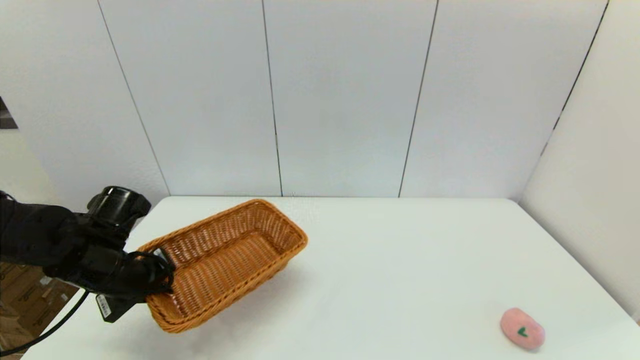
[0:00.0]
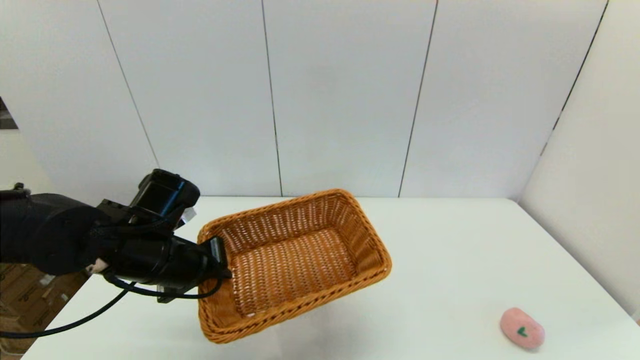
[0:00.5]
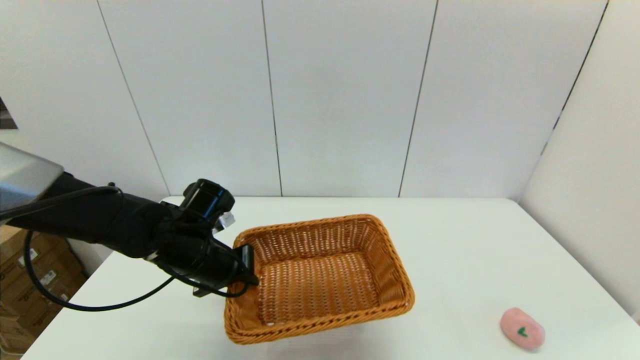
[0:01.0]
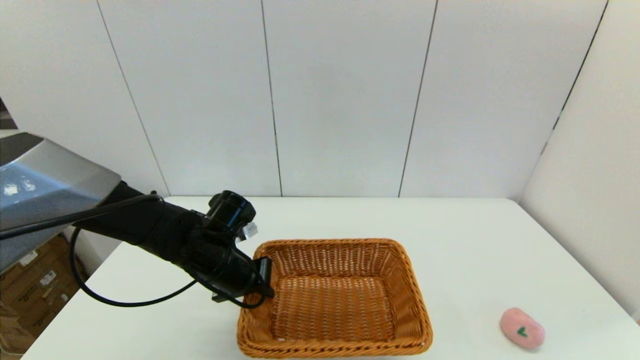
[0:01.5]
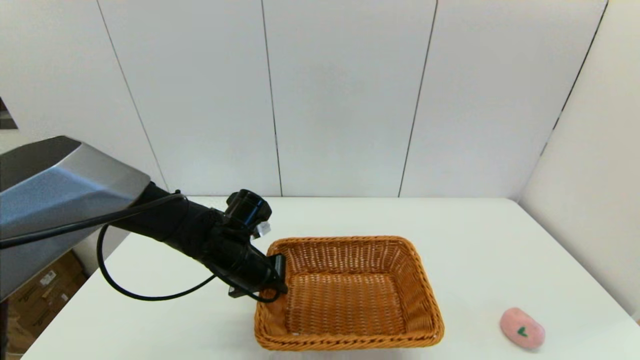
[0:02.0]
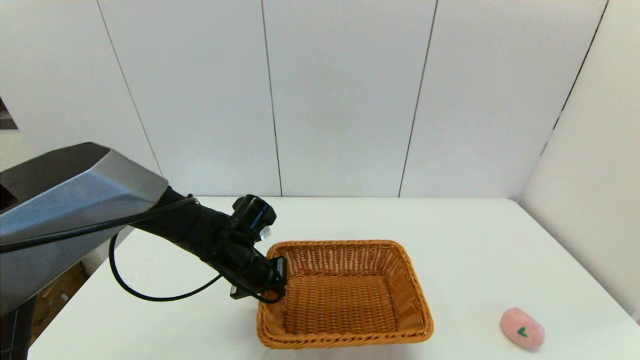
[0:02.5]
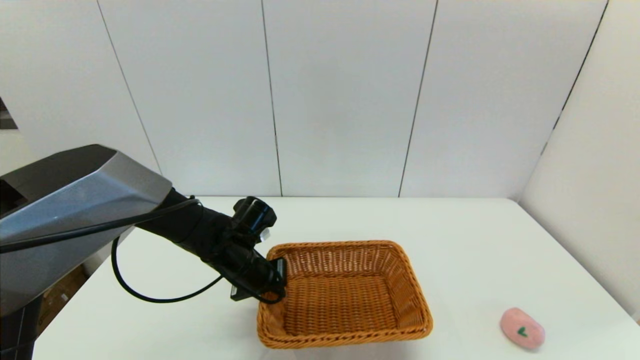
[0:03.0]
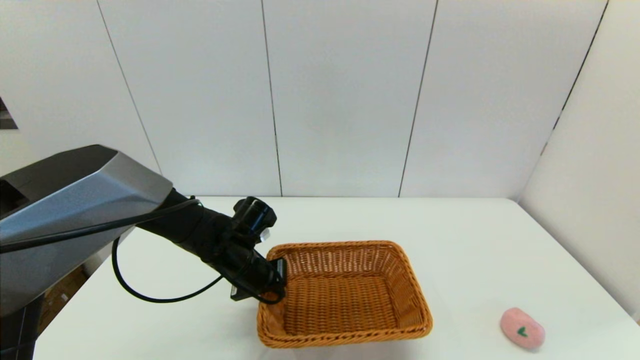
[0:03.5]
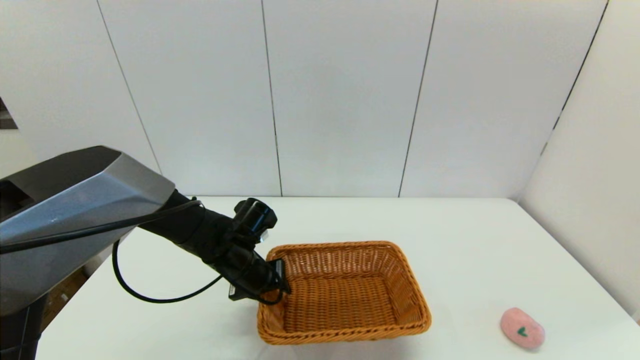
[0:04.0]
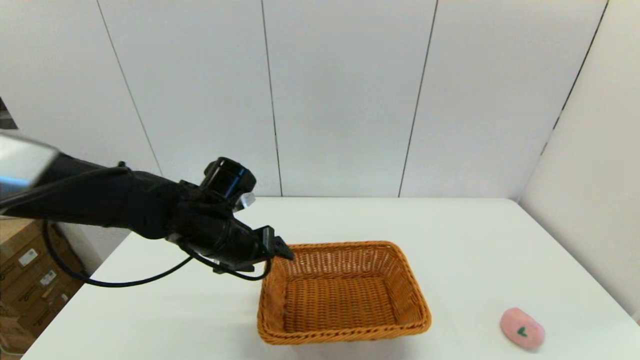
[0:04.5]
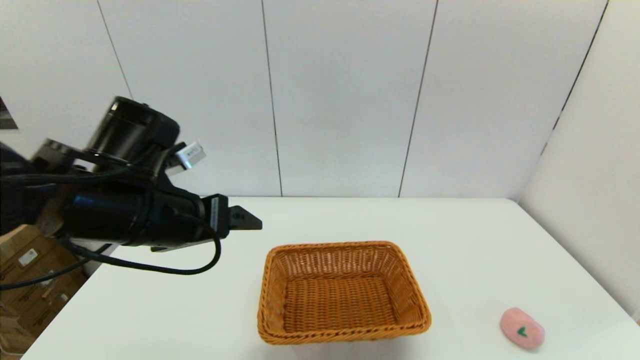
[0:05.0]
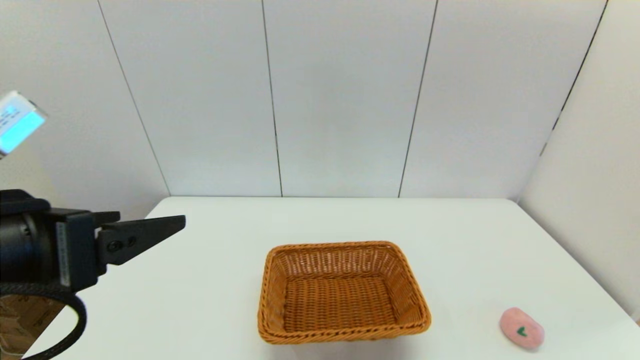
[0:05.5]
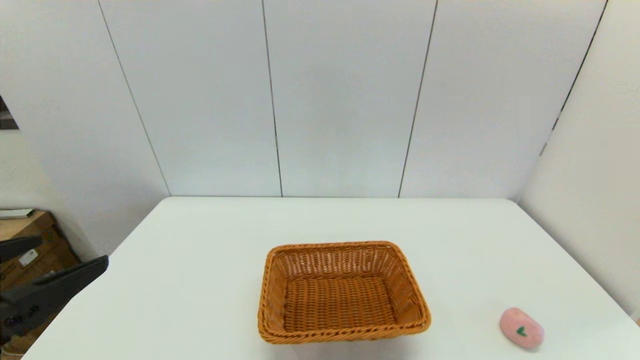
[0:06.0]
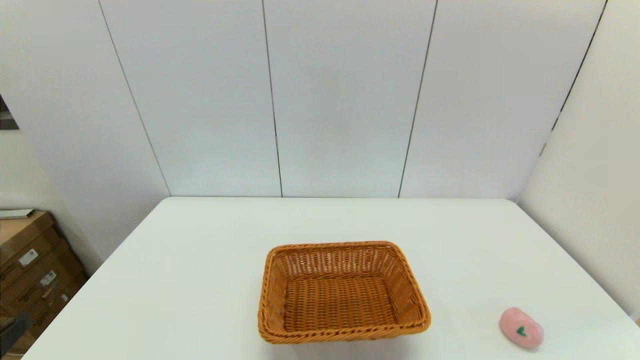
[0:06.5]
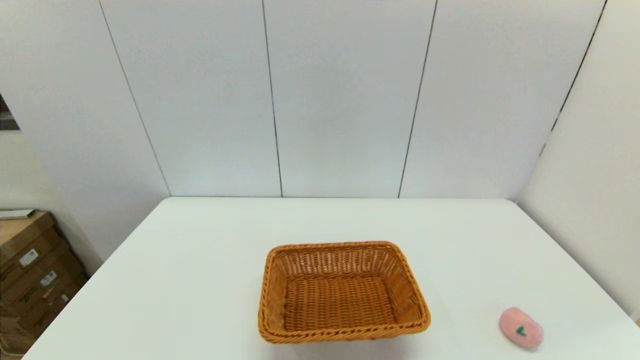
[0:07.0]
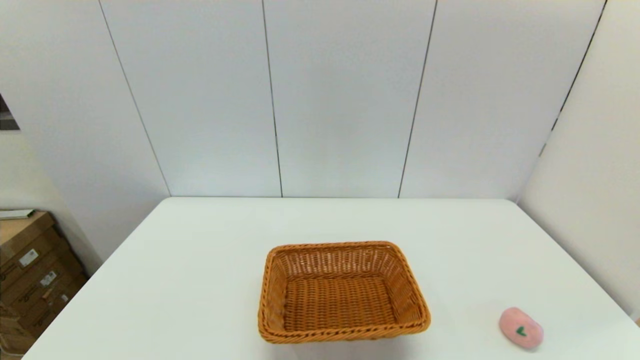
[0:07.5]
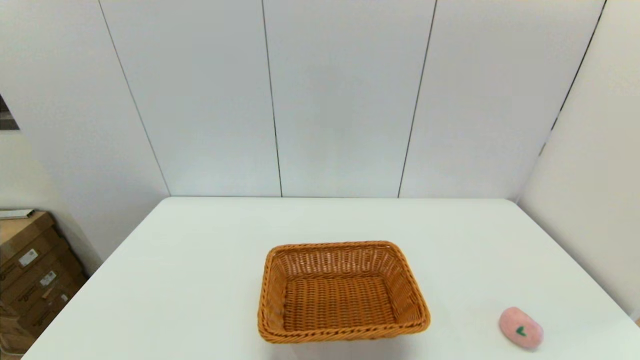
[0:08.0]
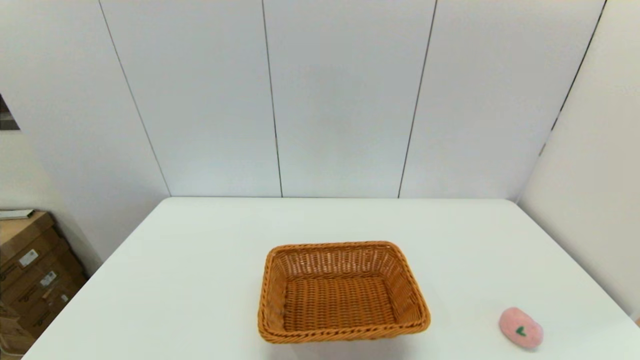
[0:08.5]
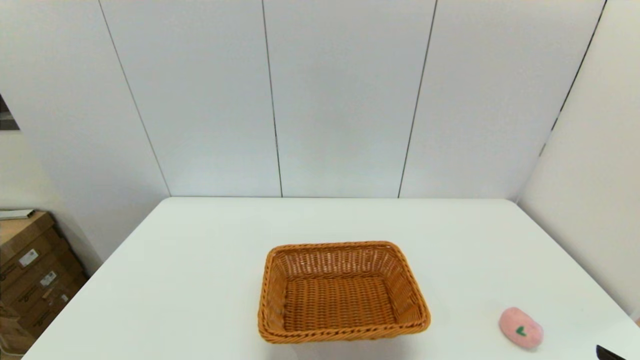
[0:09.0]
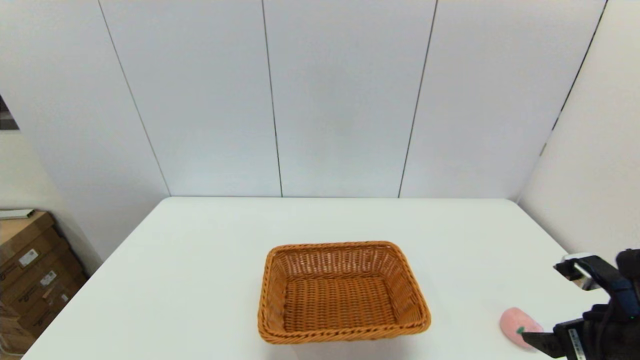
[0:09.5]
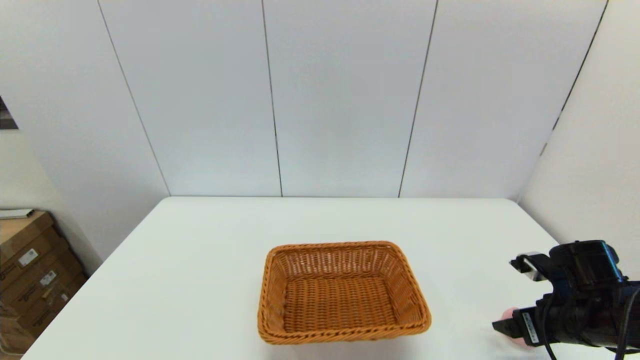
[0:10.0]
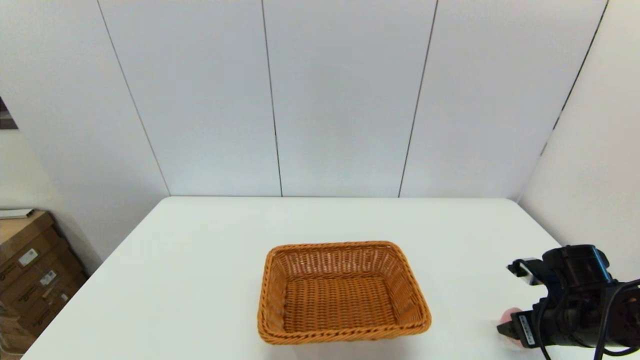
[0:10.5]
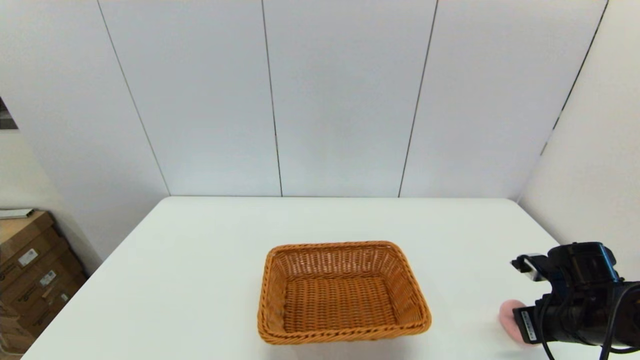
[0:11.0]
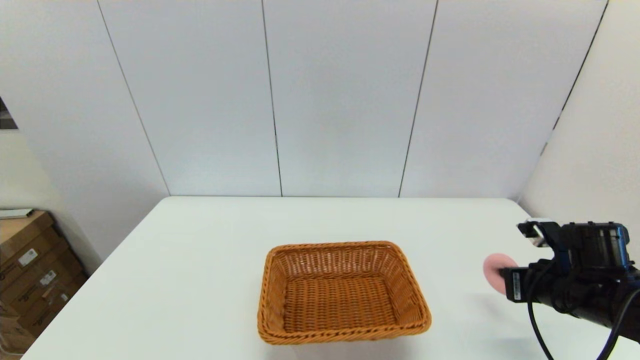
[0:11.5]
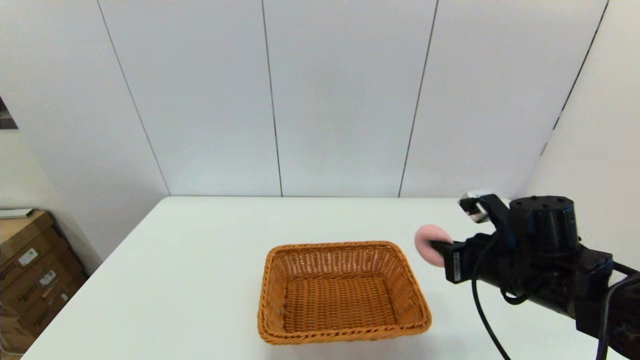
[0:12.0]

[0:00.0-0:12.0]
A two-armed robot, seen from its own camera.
Step, 0:00.0 to 0:03.5: Place the light basket on the middle of the table with the left gripper.
Step, 0:04.0 to 0:10.5: Grasp the peach with the right gripper.
0:00.0 to 0:02.0: The left gripper goes roughly 15 cm to the right and forward.
0:02.0 to 0:04.0: The left gripper opens its fingers.
0:04.0 to 0:06.0: The left gripper moves backward, upward and to the left, approximately 35 cm, and opens.
0:06.0 to 0:08.0: The left gripper moves downward and backward, about 20 cm.
0:08.0 to 0:10.0: The right gripper shifts about 25 cm forward.
0:10.0 to 0:12.0: The right gripper heads to the left and upward, covering some 15 cm, and closes its fingers.

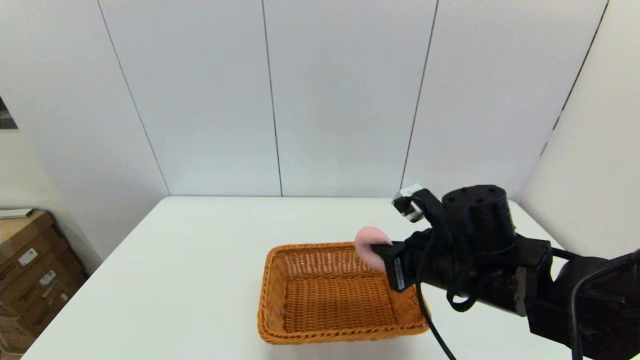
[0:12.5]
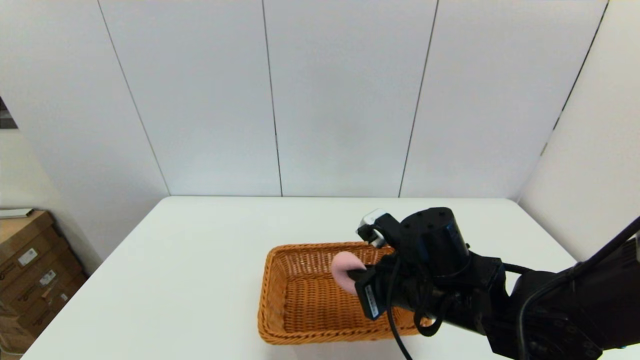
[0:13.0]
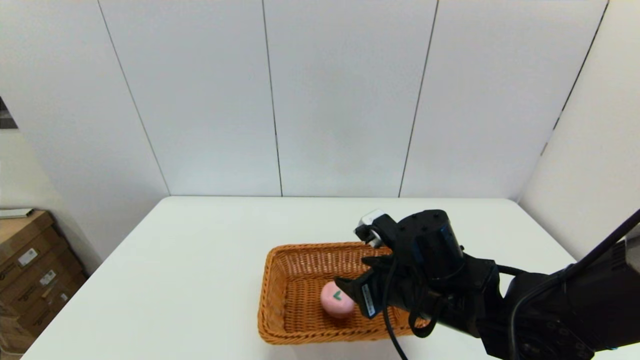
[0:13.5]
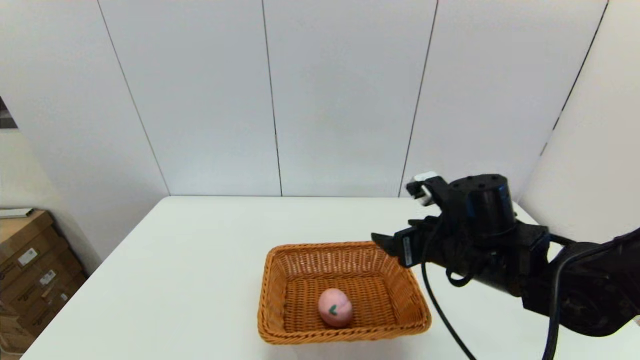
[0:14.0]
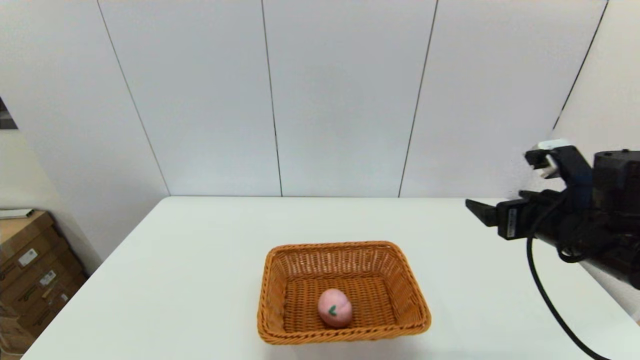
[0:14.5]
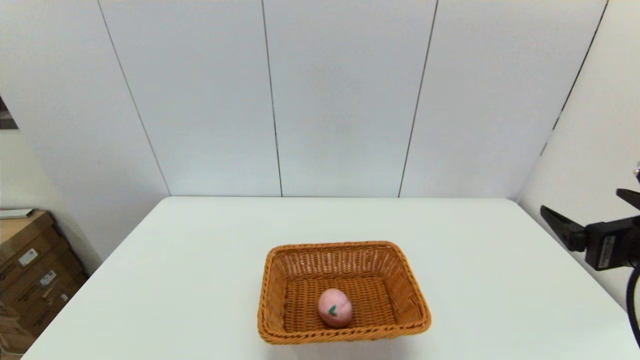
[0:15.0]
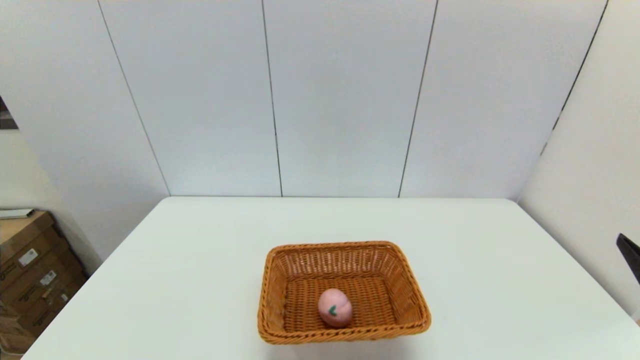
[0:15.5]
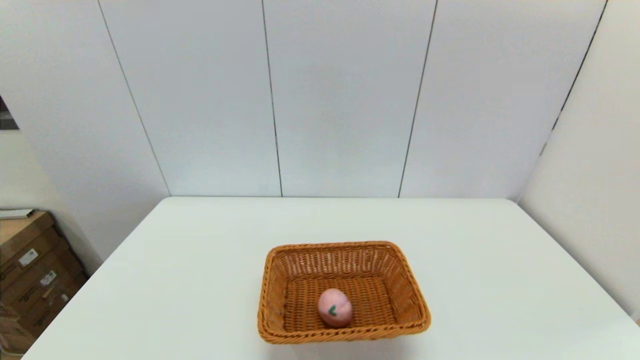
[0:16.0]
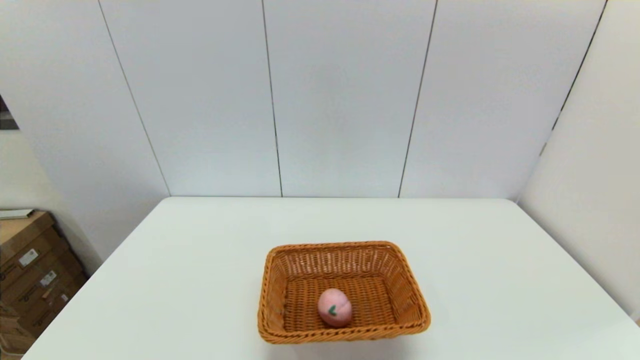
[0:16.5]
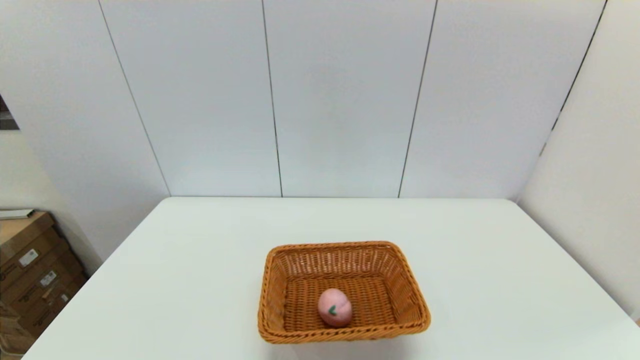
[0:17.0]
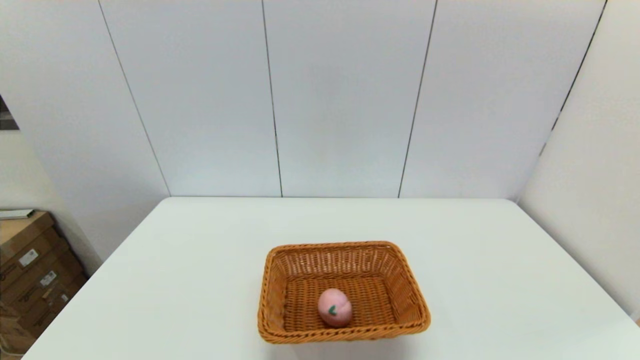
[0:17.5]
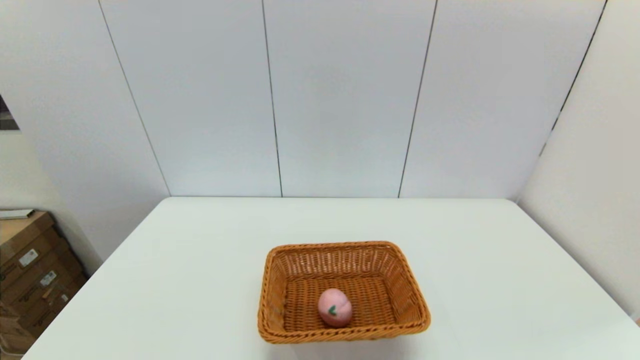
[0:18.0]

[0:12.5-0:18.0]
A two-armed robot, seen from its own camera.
0:12.5 to 0:14.5: The right gripper is displaced to the right by some 15 cm, and opens its fingers.
0:14.5 to 0:16.0: The right gripper is displaced backward by roughly 20 cm.

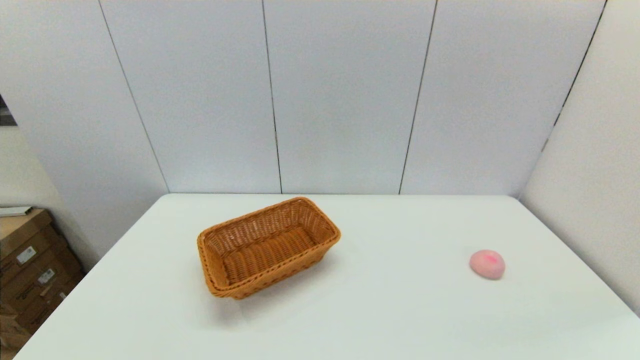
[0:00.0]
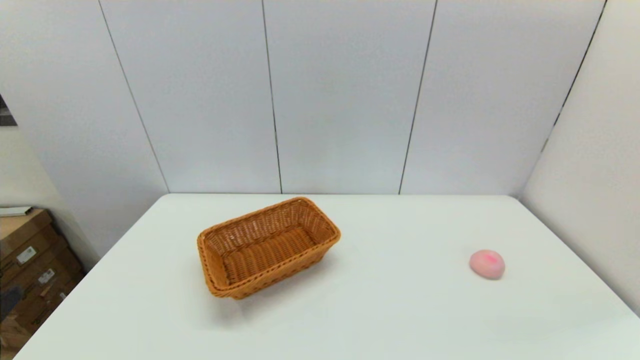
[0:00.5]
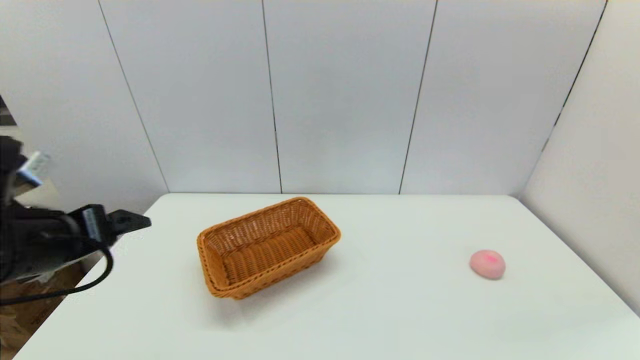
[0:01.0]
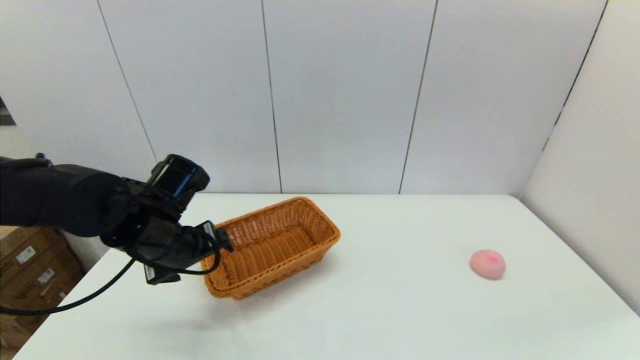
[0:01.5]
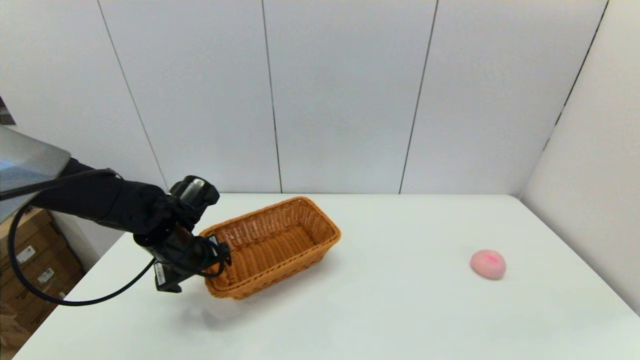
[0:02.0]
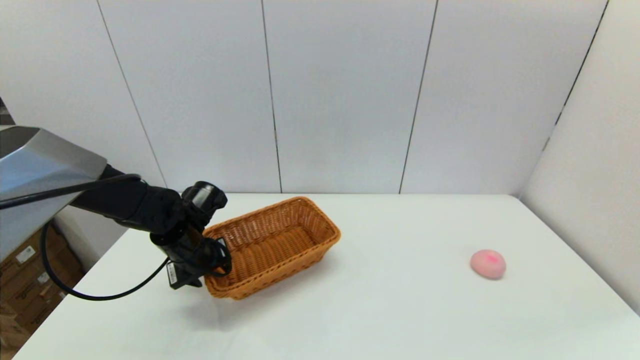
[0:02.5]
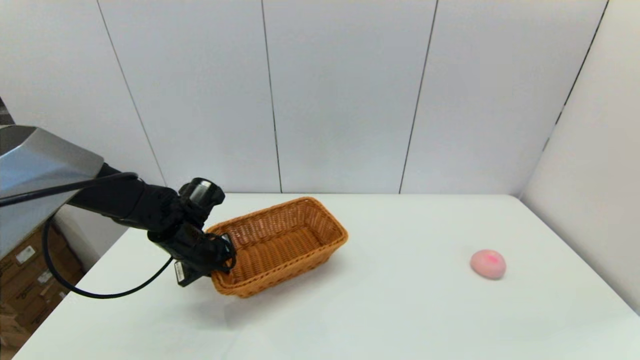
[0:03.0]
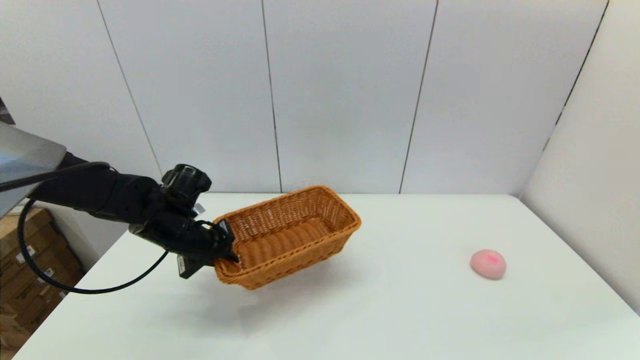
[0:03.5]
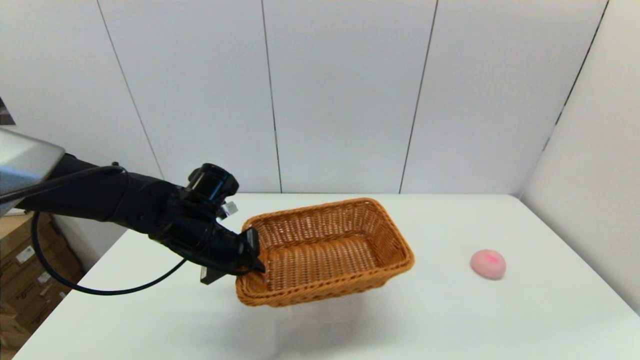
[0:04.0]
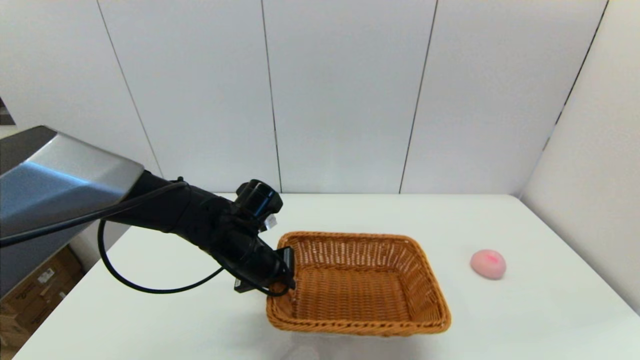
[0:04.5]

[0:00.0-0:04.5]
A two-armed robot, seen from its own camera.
Step, 0:00.0 to 0:02.5: Grasp the light basket with the left gripper.
0:00.0 to 0:02.0: The left gripper goes approximately 35 cm forward.
0:02.0 to 0:04.5: The left gripper moves to the right, approximately 10 cm, and closes.
